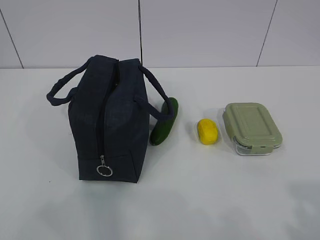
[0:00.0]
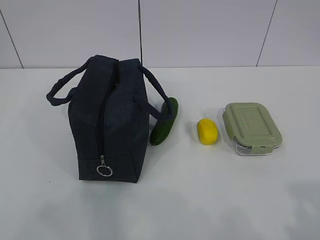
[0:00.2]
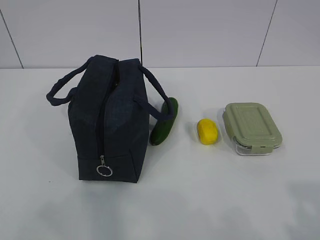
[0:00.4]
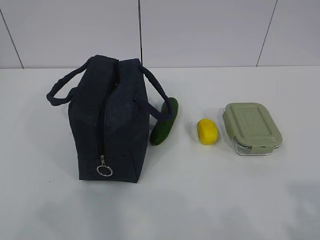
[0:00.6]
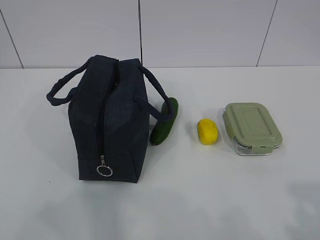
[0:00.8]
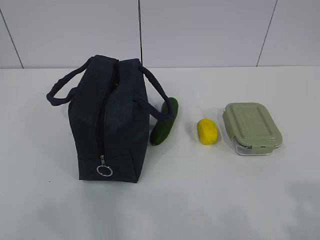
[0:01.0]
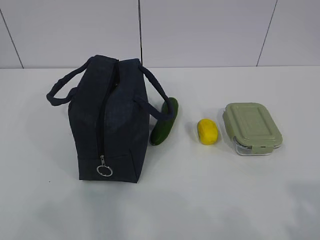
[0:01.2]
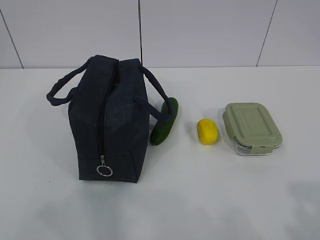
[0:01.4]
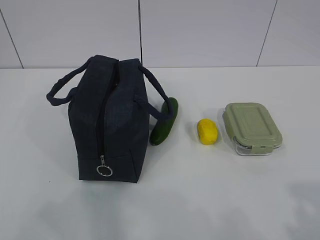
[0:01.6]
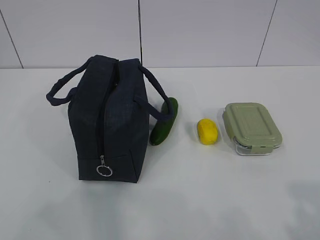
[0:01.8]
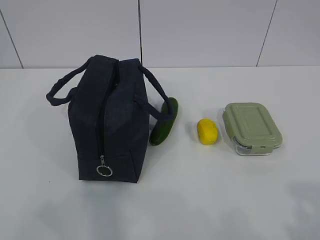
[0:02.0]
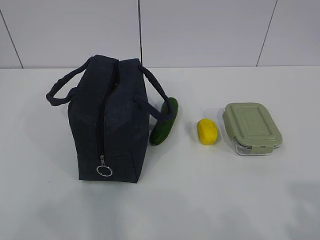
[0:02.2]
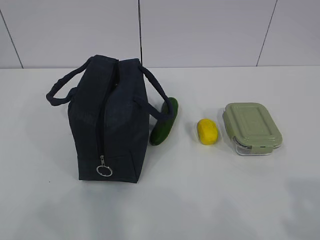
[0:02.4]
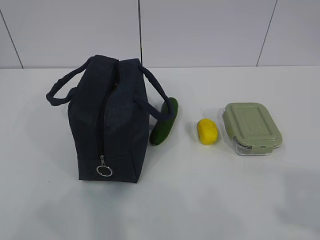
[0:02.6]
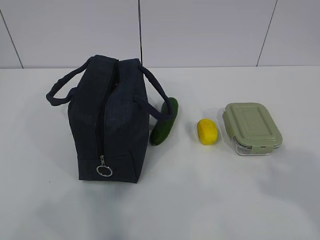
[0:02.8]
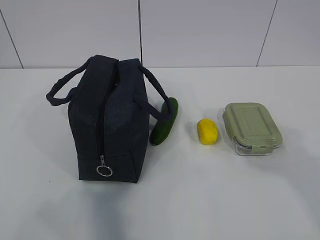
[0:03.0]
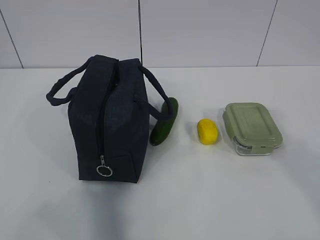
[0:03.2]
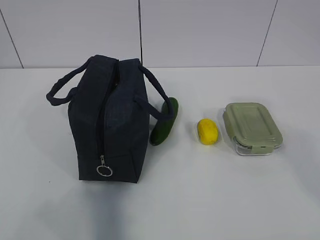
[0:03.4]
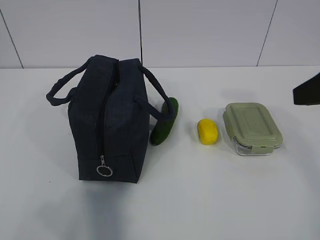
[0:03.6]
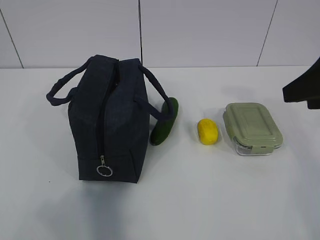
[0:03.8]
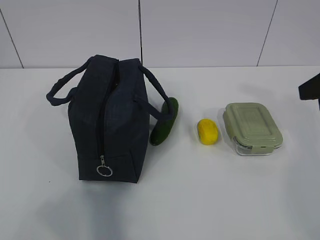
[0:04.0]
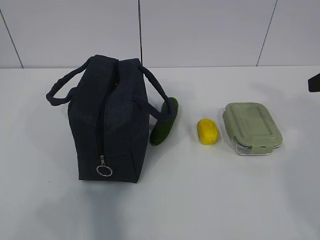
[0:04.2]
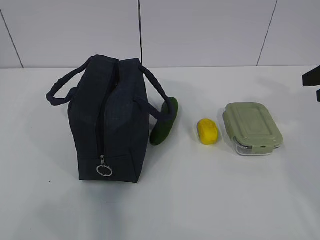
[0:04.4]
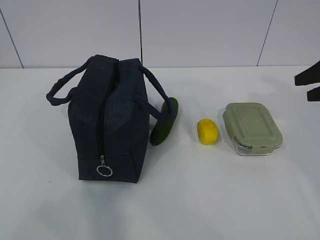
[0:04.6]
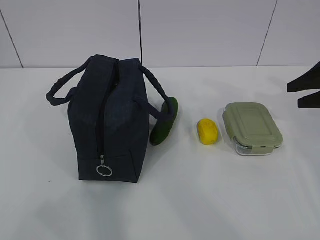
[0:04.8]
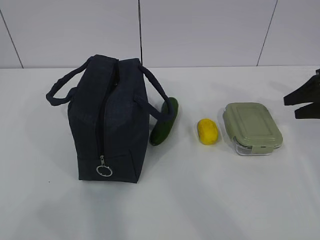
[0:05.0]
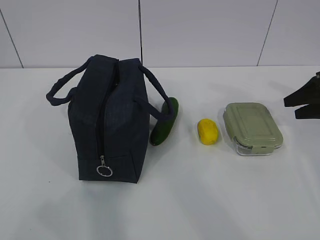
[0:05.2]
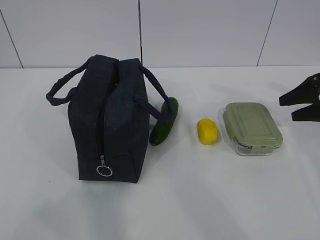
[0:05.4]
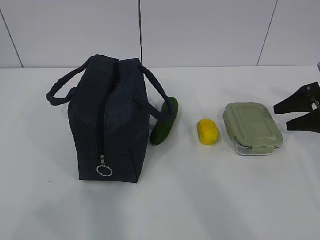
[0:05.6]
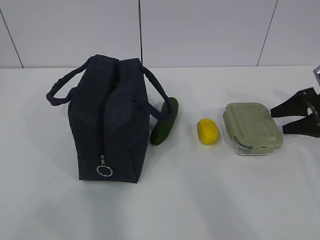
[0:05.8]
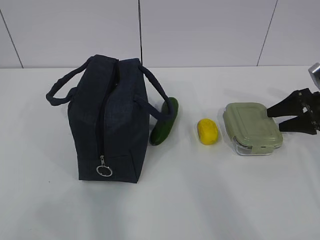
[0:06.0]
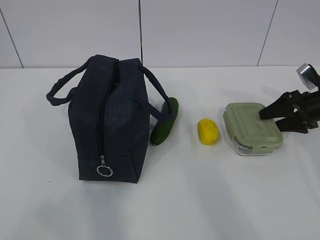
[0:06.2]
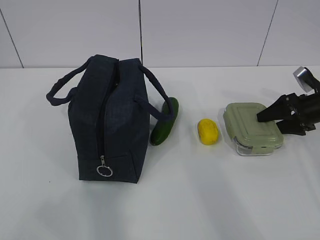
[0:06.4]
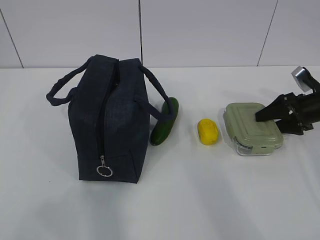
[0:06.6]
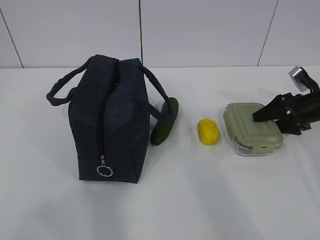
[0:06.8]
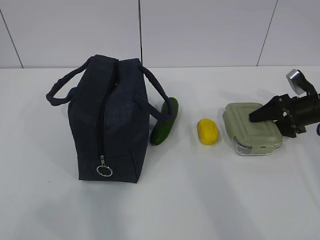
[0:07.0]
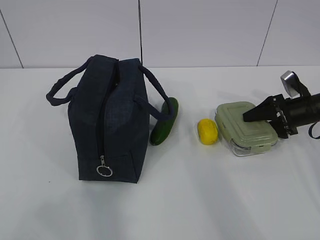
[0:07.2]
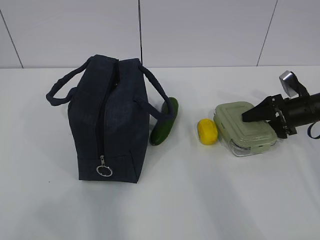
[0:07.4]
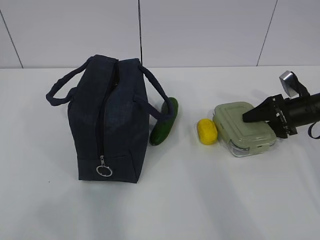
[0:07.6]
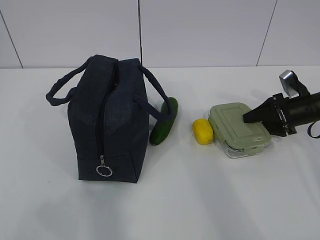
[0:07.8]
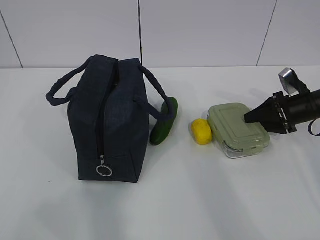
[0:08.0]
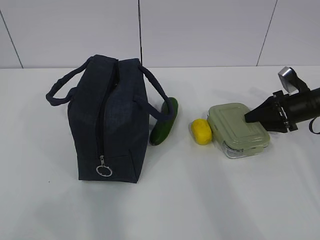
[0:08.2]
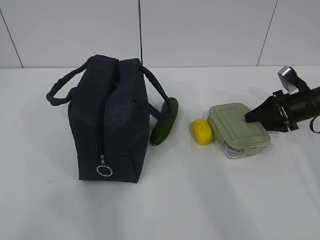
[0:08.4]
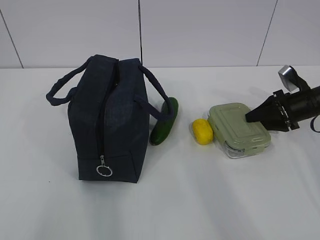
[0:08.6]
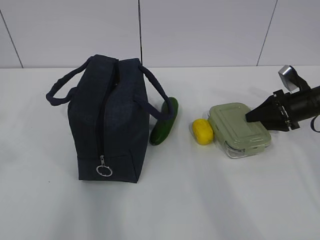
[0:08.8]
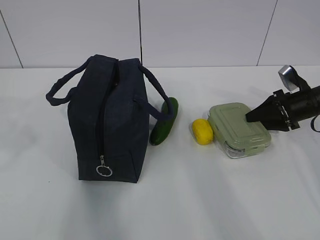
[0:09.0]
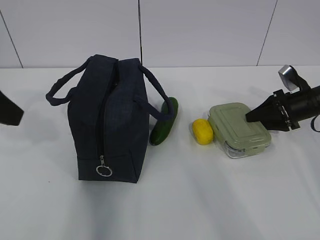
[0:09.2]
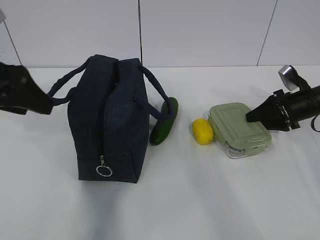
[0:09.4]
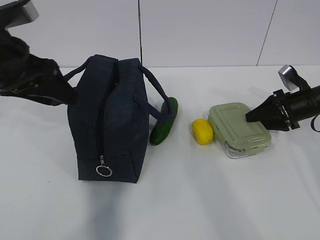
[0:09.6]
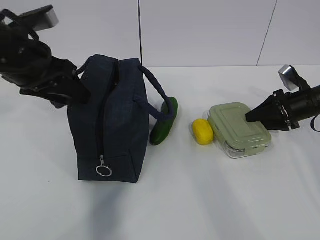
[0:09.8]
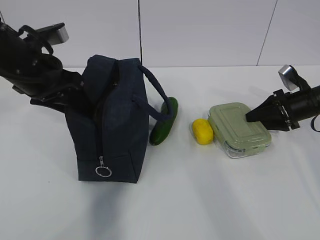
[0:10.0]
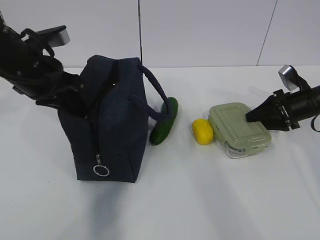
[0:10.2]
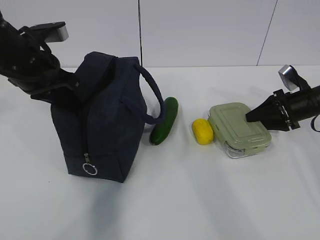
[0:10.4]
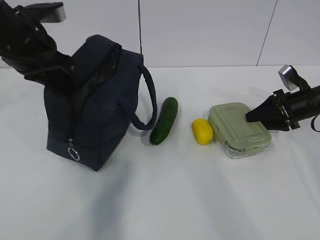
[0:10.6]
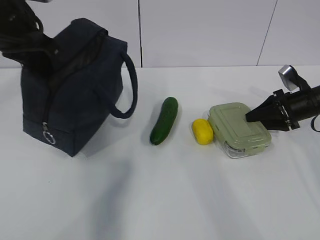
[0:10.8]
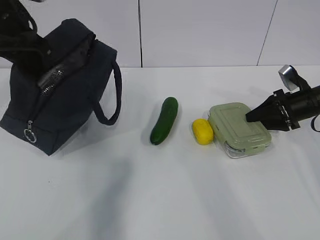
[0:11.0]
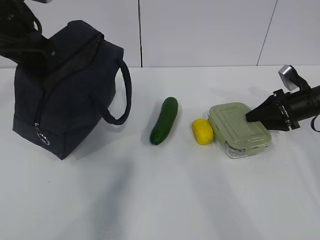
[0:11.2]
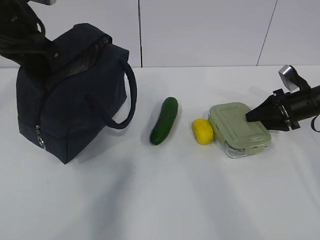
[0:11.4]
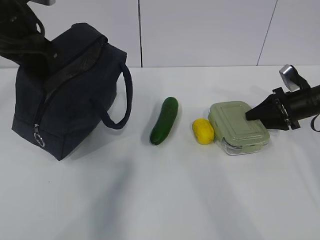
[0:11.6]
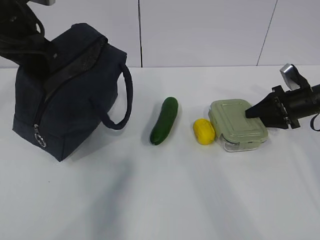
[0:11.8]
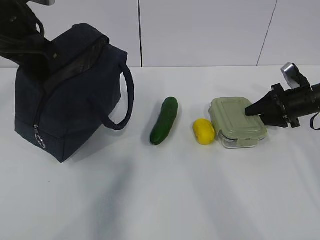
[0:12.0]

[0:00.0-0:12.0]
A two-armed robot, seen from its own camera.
Step, 0:00.0 to 0:10.0: Grab the lunch box with your right hand.
Step, 0:10.2 to 0:11.6: Grab the lunch bag with your left hand.
0:01.6 to 0:03.0: The right gripper shifts roughly 10 cm forward and upward.
0:03.0 to 0:04.4: The right gripper goes approximately 25 cm forward.
0:04.4 to 0:06.0: The right gripper shifts roughly 20 cm downward and forward.
0:06.0 to 0:07.6: The right gripper shifts by some 5 cm.
0:07.6 to 0:09.0: The left gripper heads forward, covering about 15 cm.
0:09.0 to 0:10.4: The left gripper shifts roughly 20 cm forward, downward and to the right, and closes its fingers.
0:10.4 to 0:12.0: The left gripper goes approximately 5 cm upward.

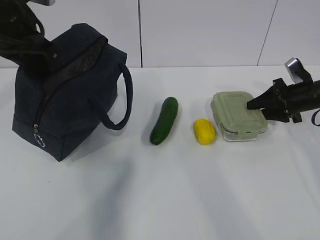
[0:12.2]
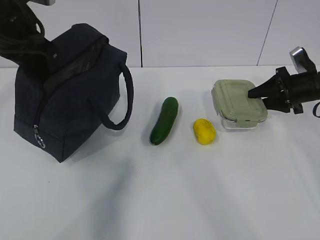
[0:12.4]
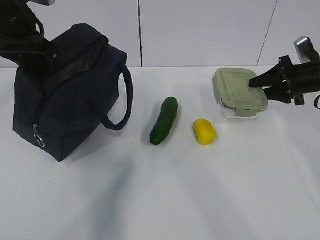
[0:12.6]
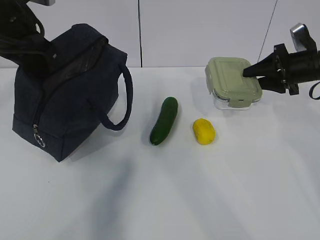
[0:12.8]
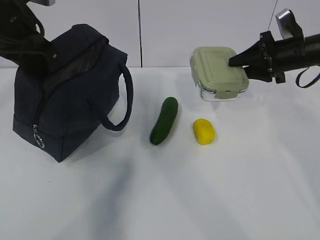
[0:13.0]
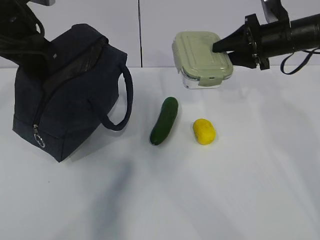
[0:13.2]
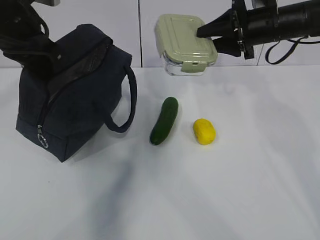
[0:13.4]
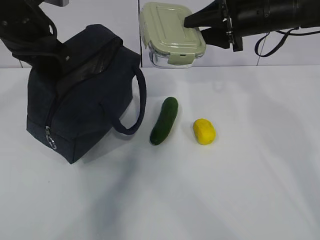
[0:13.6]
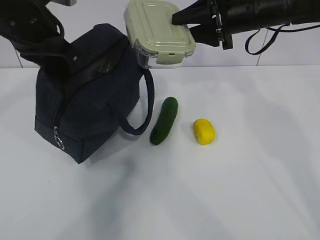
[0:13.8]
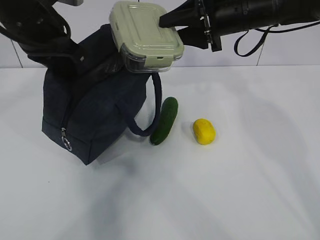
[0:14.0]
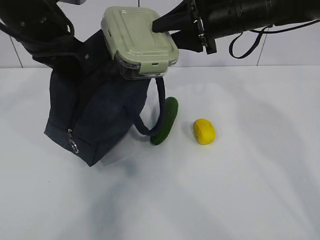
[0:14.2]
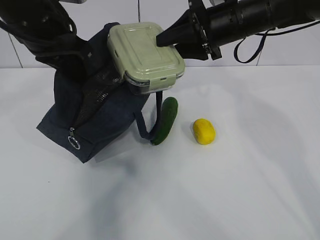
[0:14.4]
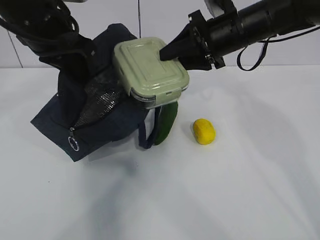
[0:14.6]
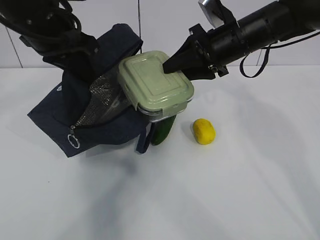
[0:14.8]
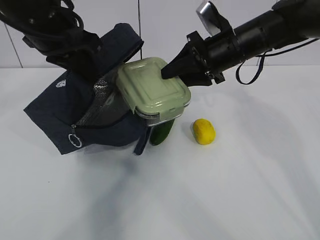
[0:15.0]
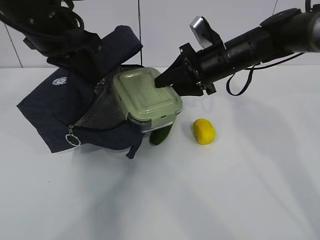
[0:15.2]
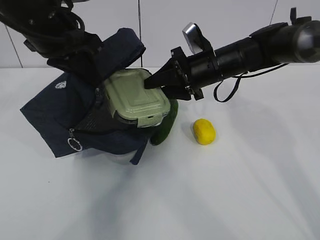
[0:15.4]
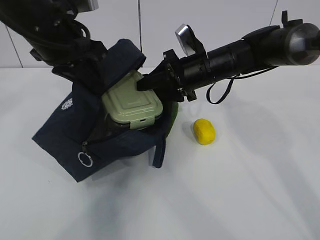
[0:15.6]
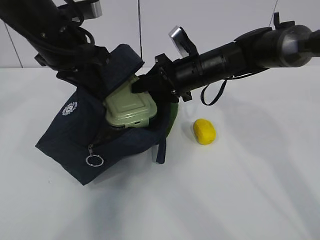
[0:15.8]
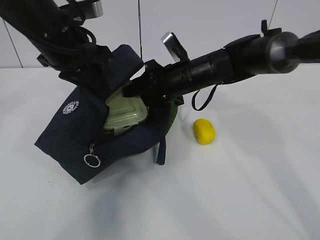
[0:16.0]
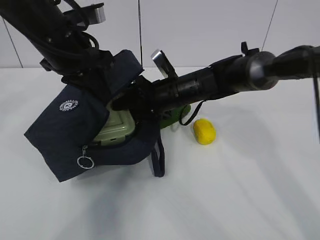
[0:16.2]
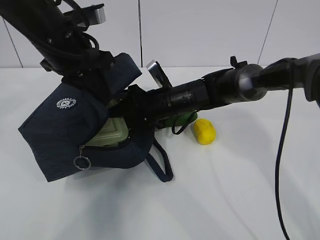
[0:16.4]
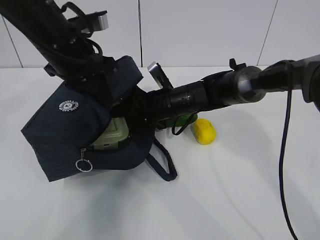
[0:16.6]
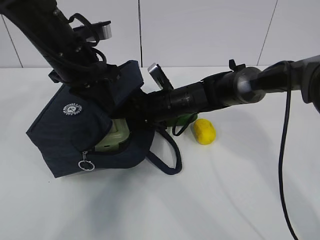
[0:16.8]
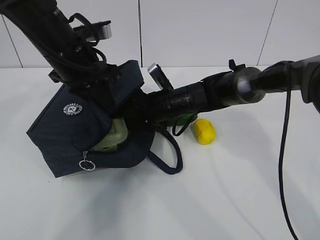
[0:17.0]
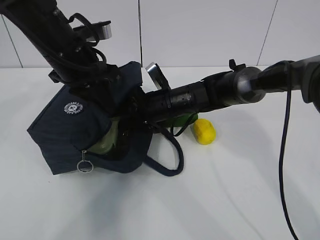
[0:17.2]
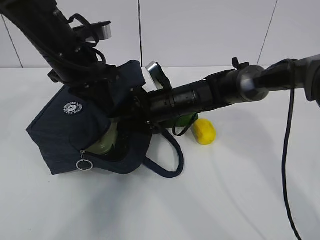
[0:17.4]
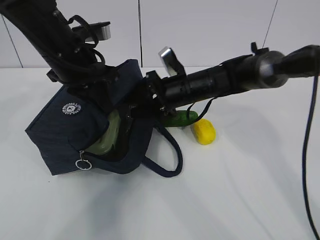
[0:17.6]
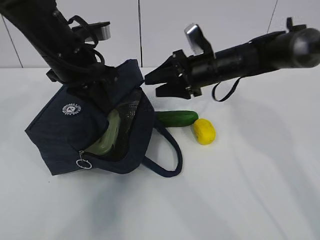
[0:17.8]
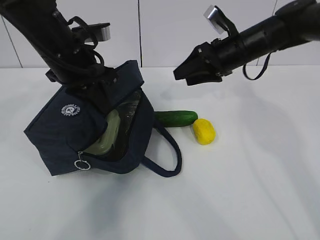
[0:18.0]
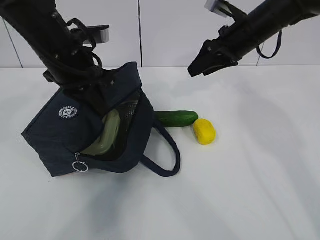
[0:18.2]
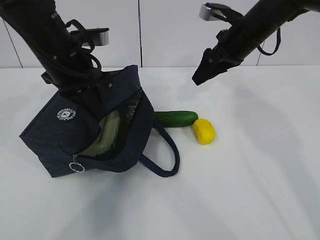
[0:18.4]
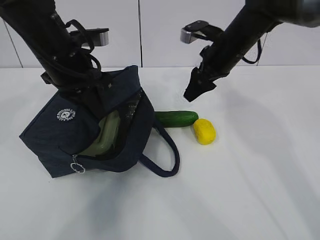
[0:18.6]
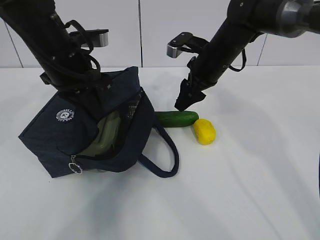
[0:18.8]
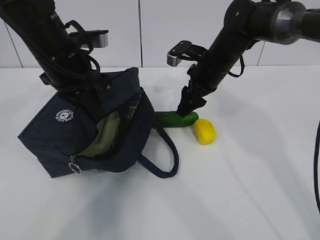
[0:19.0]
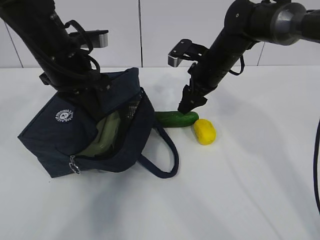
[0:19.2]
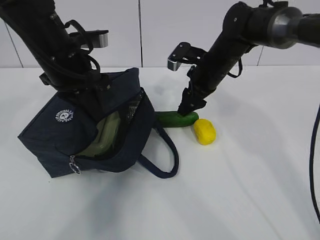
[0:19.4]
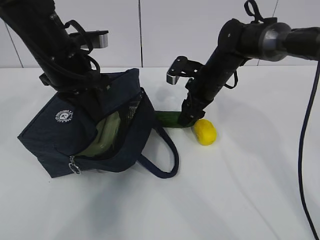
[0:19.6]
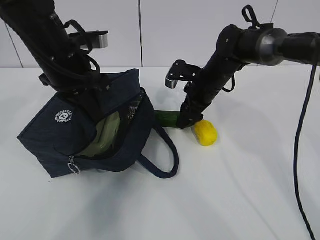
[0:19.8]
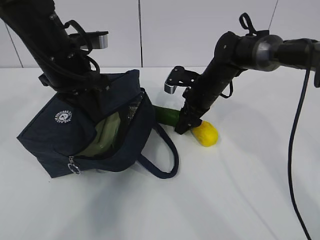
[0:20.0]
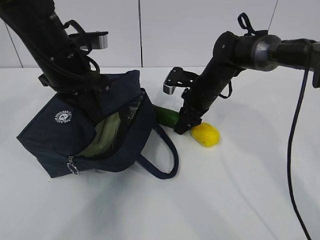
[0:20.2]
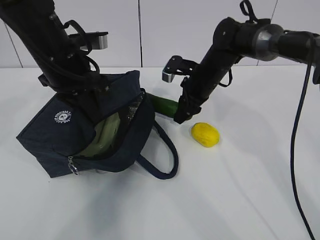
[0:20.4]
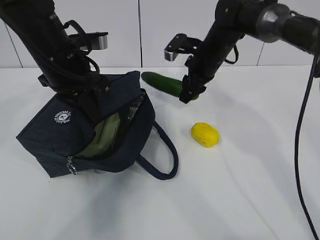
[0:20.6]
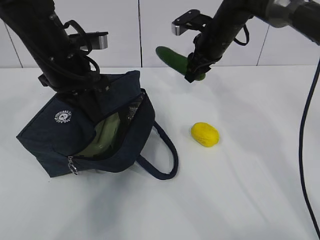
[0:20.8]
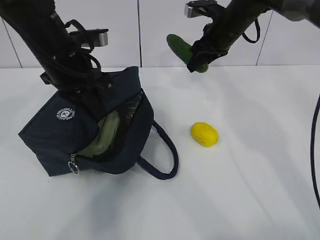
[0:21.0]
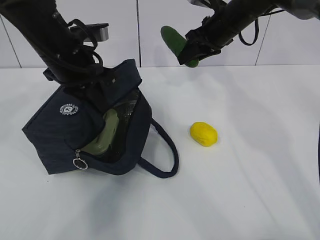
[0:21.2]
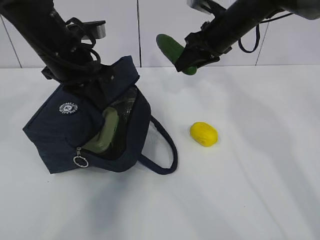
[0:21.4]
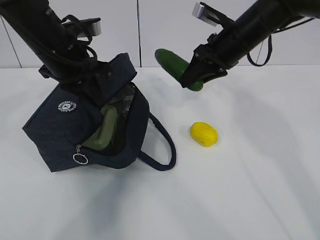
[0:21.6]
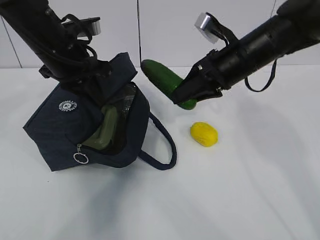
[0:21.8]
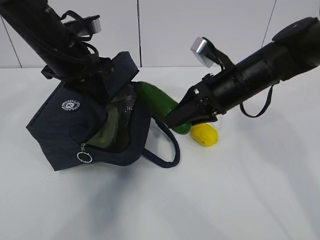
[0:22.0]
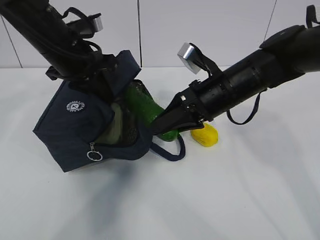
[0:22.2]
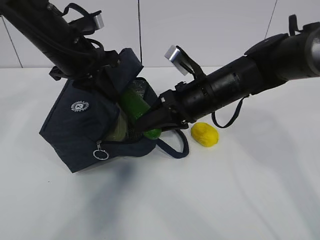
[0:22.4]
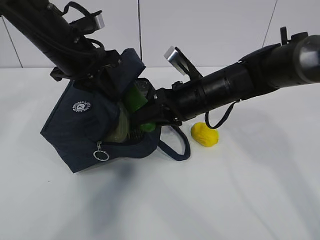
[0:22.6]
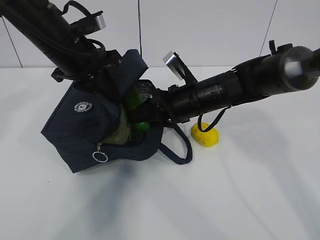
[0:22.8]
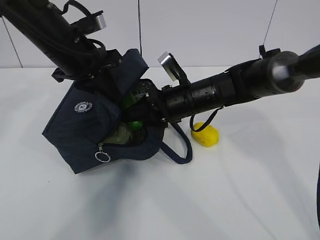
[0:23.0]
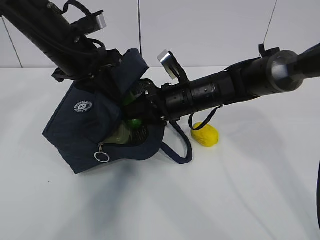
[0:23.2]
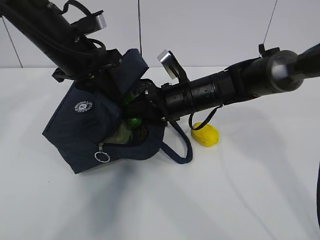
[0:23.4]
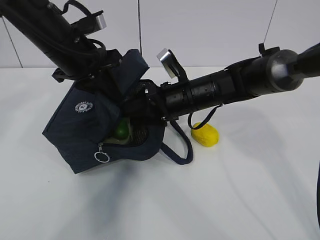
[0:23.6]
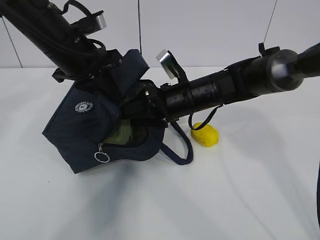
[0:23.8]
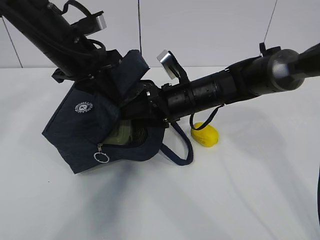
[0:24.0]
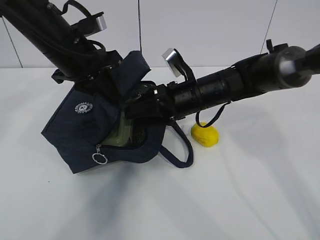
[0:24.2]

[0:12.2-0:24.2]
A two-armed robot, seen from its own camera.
Step, 0:12.2 to 0:14.2: Place it into the bag with your right hand.
Step, 0:14.6 to 0:16.6: Grab the cucumber with your right hand.
Step, 0:17.0 to 0:19.8: Place it into the bag with your right hand.
Step, 0:20.0 to 0:22.2: Grab the lemon with your right hand.
0:12.2 to 0:13.8: The right gripper is displaced to the left and upward by approximately 25 cm.
0:13.8 to 0:15.2: The right gripper is displaced downward by roughly 10 cm.
0:15.2 to 0:16.6: The right gripper moves downward and to the left, about 15 cm.
0:16.6 to 0:18.2: The right gripper heads to the right and upward, covering roughly 20 cm.
0:18.2 to 0:19.8: The right gripper heads downward and to the left, covering some 15 cm.
0:19.8 to 0:21.2: The right gripper moves upward, approximately 10 cm.
0:21.2 to 0:22.6: The right gripper goes roughly 15 cm backward, downward and to the left.
0:22.6 to 0:24.2: The grippers make only small movements.
